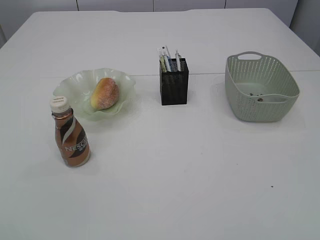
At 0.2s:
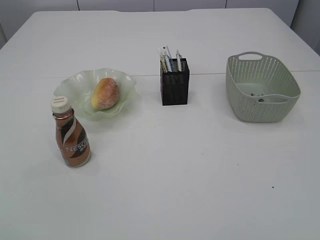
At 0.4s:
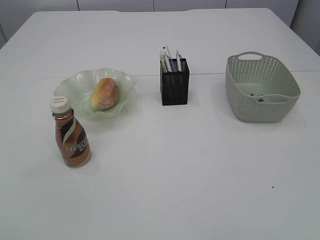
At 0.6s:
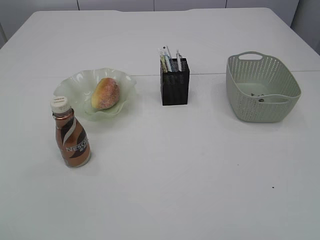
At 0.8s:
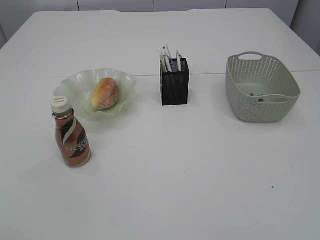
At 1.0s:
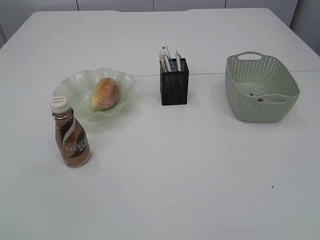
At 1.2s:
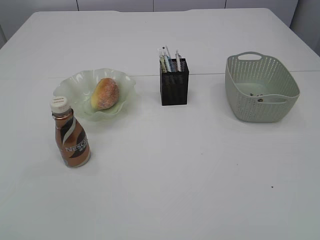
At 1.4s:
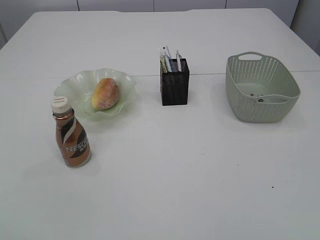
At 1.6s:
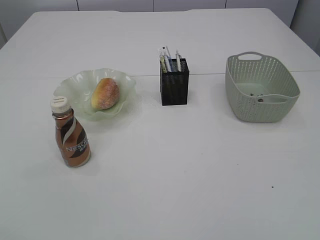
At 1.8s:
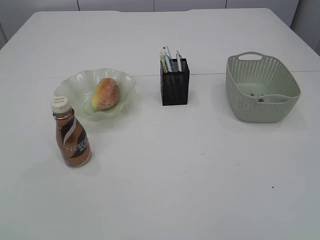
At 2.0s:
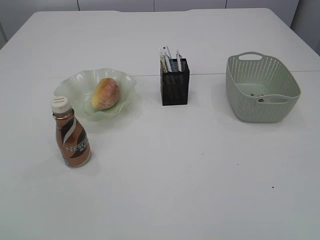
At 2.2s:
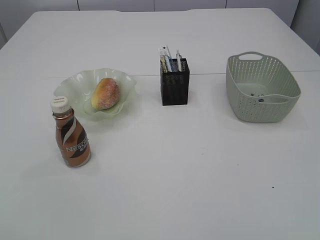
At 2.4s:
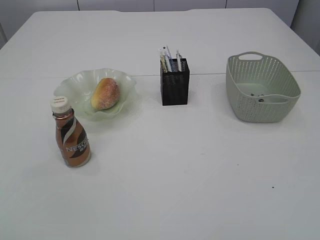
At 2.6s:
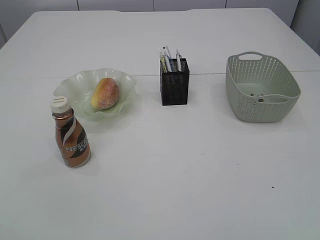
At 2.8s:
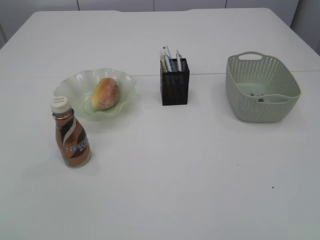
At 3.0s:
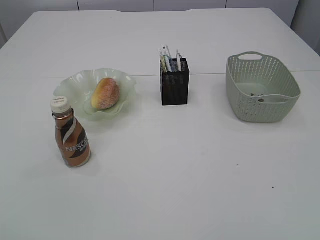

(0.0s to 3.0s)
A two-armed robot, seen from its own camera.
1.6s - 3.0s: Both grippers stay put.

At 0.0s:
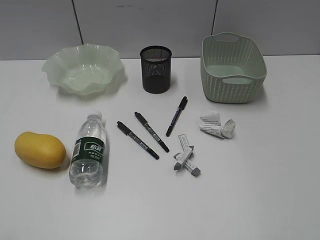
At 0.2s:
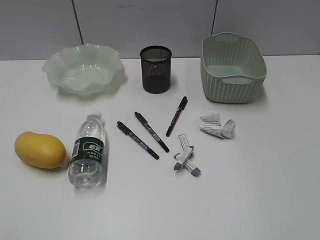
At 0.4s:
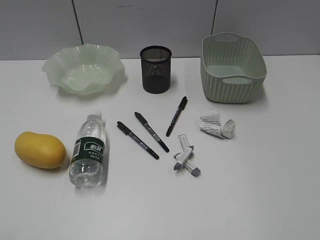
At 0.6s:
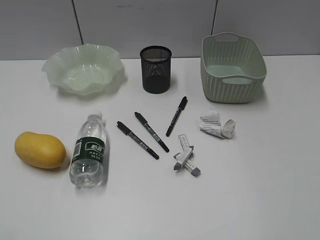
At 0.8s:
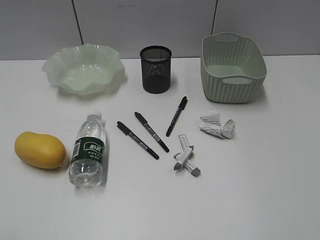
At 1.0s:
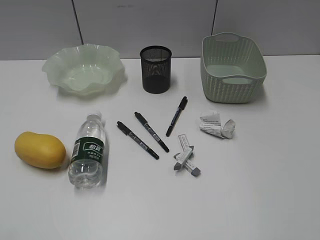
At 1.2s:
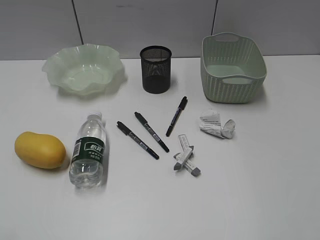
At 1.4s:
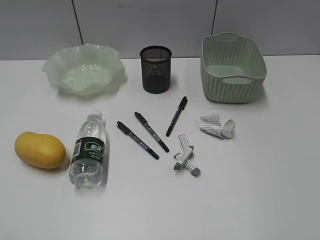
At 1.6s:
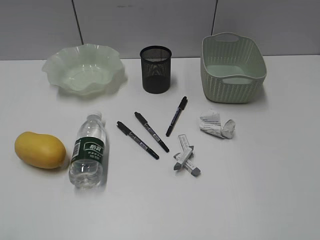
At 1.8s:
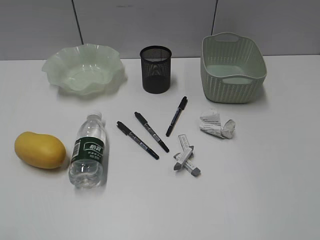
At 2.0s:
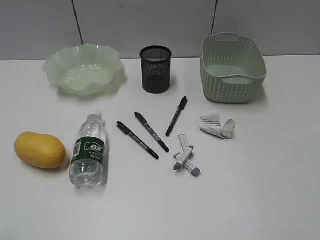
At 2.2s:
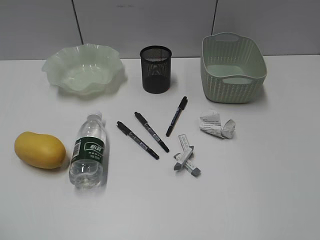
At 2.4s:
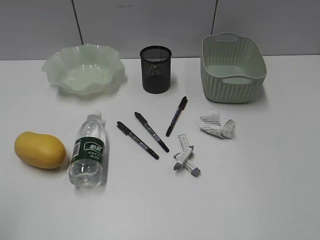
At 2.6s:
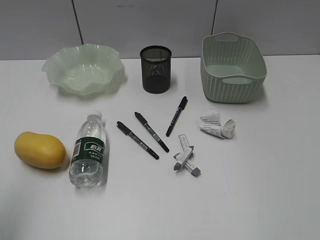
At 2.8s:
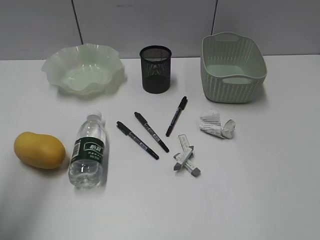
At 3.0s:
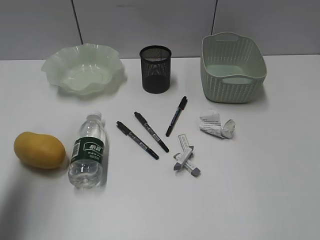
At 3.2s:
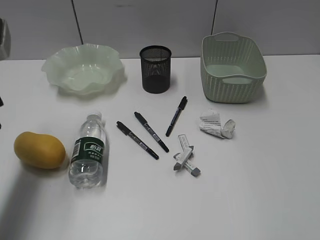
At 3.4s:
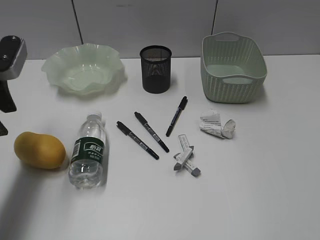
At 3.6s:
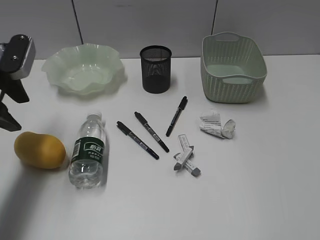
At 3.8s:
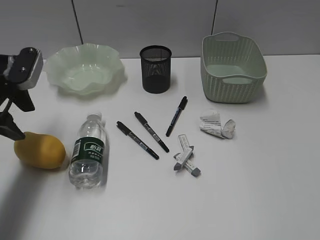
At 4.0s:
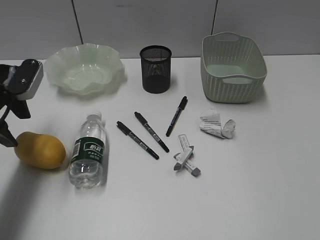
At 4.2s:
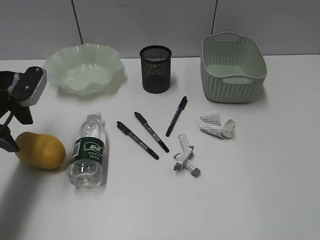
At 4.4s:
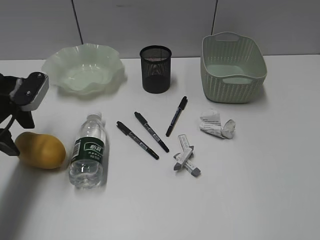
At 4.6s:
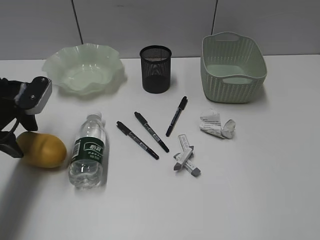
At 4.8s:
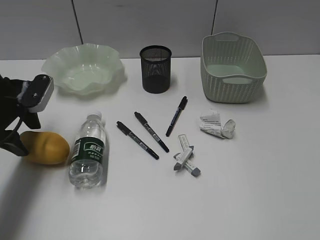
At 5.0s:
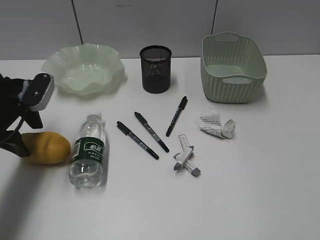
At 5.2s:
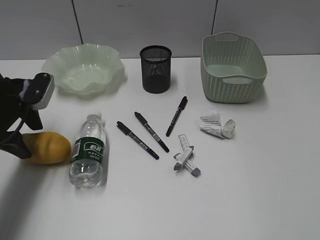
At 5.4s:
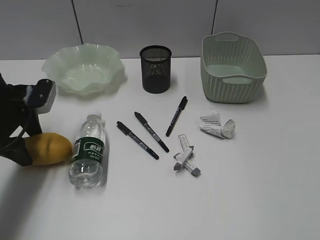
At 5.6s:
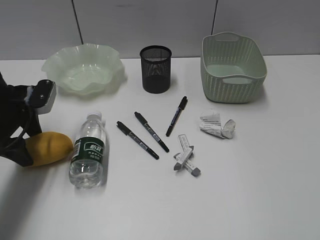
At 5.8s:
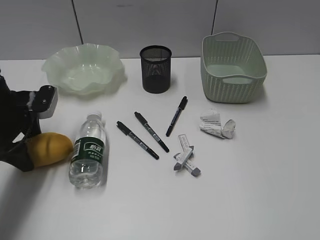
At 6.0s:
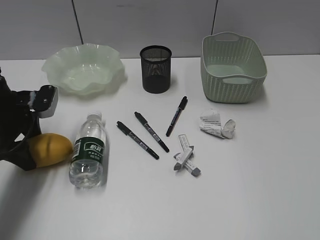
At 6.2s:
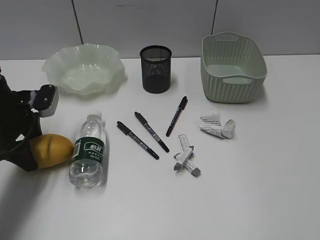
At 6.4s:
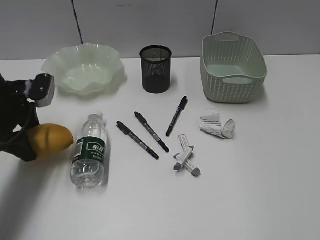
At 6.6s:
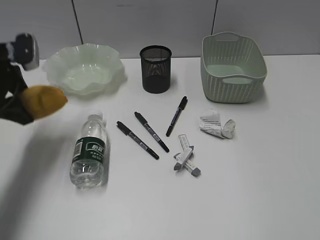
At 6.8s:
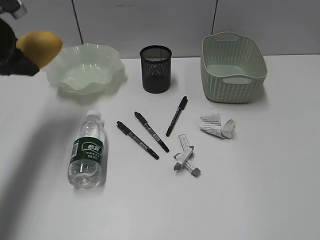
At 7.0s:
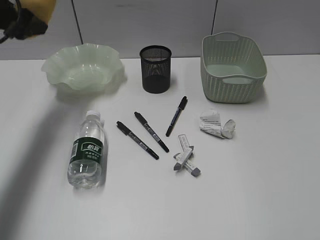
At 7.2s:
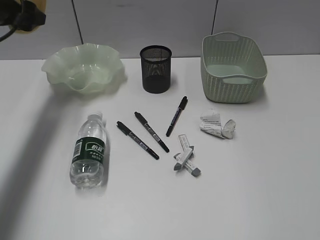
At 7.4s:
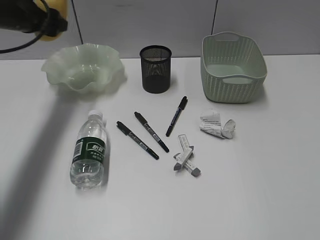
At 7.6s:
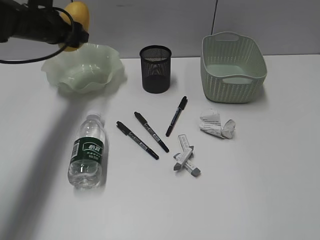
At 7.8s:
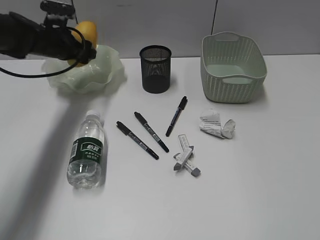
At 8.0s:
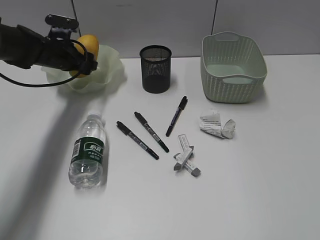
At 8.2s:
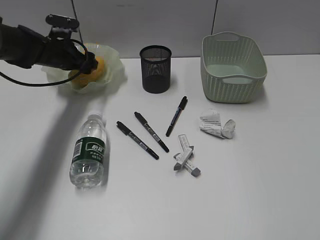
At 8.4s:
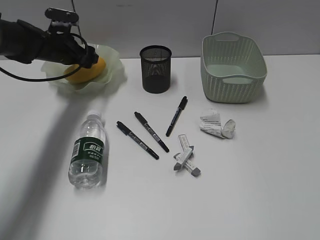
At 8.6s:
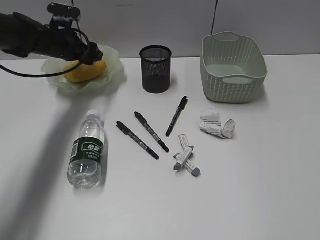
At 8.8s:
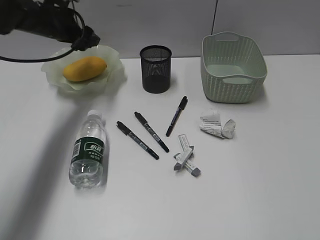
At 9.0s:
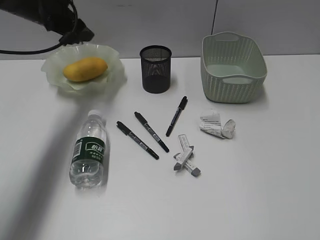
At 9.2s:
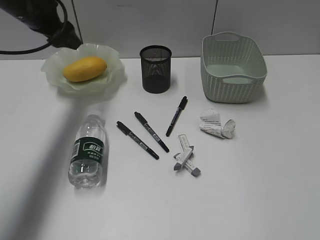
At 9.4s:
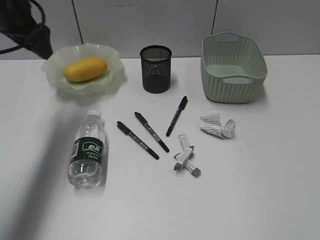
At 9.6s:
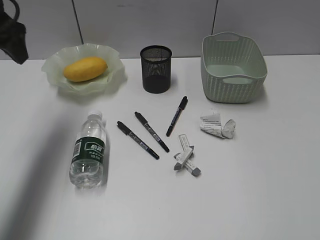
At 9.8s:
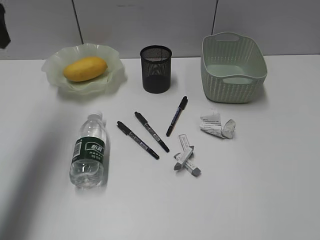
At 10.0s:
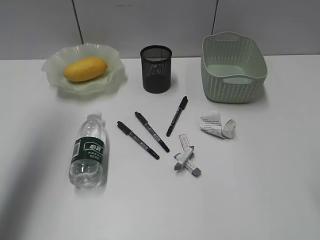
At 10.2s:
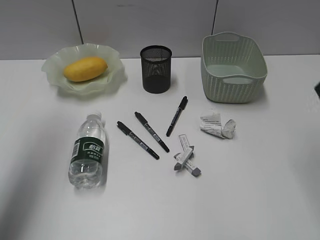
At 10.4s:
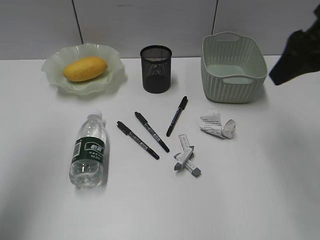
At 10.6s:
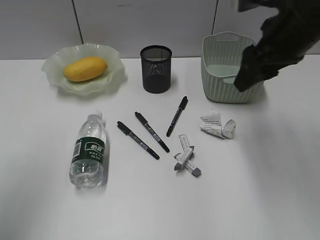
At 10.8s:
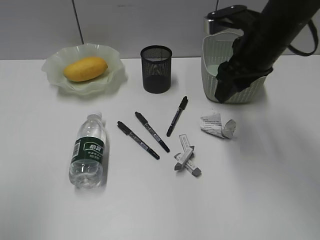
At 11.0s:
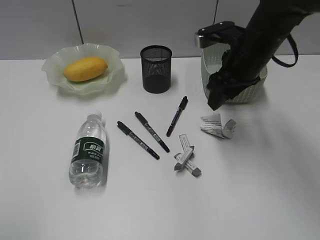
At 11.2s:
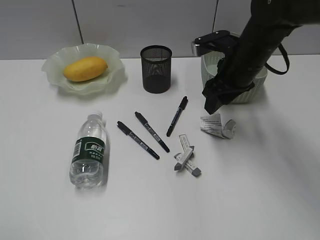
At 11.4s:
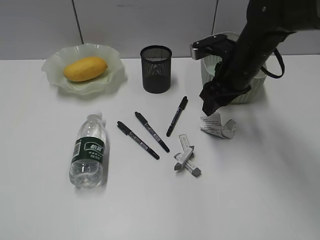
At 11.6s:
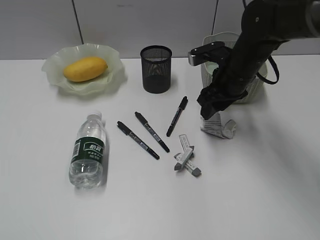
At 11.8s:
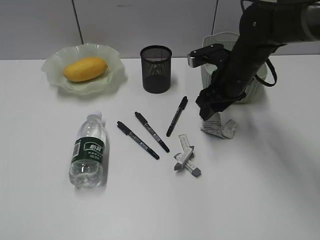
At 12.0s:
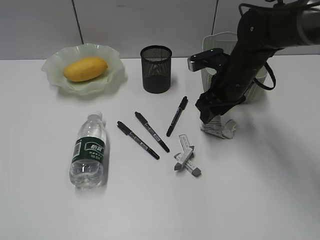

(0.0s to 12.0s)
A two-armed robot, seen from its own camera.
Step, 3.2s - 6.0s: Grasp the mango with left gripper.
Step, 6.2s - 8.8s: Place the mango in the plate with left gripper.
1.6s - 3.0s: The left gripper shifts some 25 cm forward, and opens up.
3.0s - 4.4s: The left gripper is displaced downward and forward by about 15 cm.
4.4s - 6.0s: There are only small adjustments of the grippers.
6.0s - 7.6s: The left gripper shifts roughly 15 cm forward and upward.
7.6s - 9.0s: The left gripper goes downward and returns, about 10 cm each way.
9.0s - 10.4s: The right gripper shifts roughly 30 cm forward. The left gripper goes approximately 30 cm backward and upward.
10.4s - 12.0s: The left gripper is displaced backward and downward by roughly 25 cm; the right gripper moves downward, forward and to the left, approximately 25 cm.

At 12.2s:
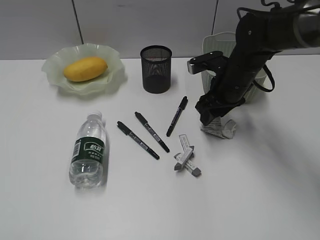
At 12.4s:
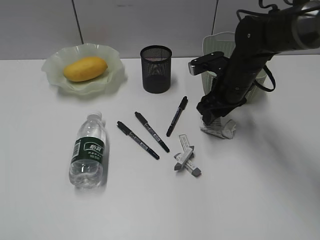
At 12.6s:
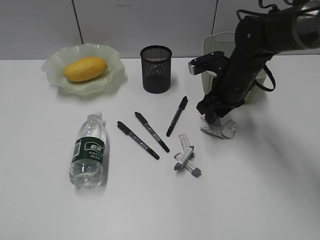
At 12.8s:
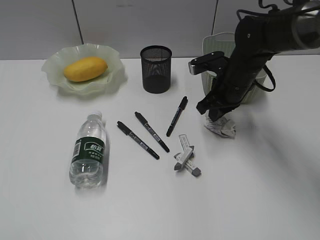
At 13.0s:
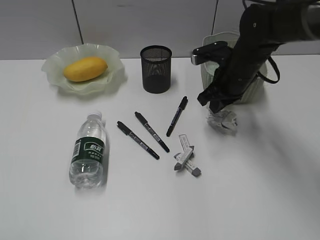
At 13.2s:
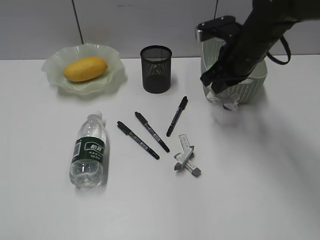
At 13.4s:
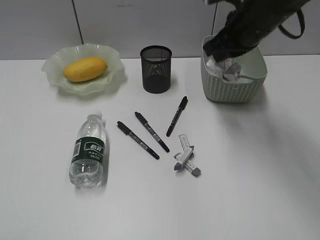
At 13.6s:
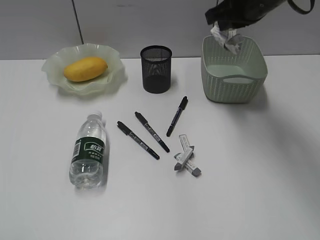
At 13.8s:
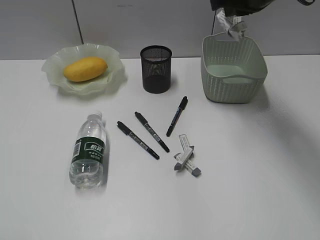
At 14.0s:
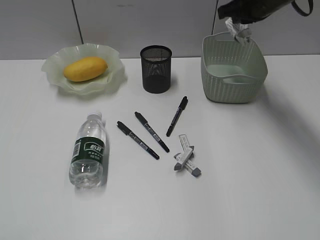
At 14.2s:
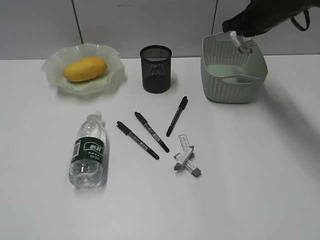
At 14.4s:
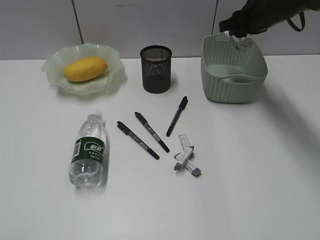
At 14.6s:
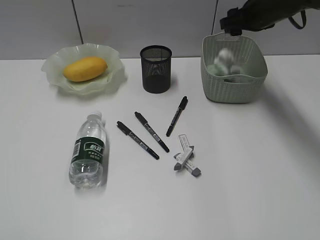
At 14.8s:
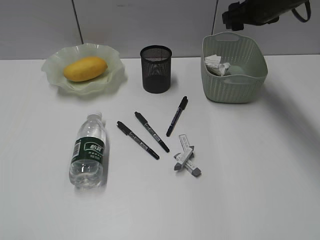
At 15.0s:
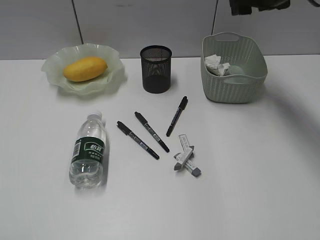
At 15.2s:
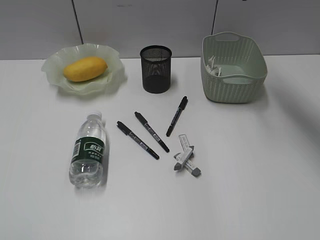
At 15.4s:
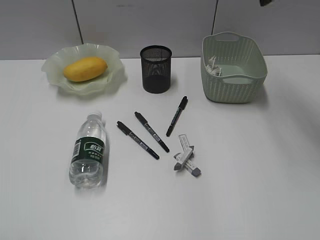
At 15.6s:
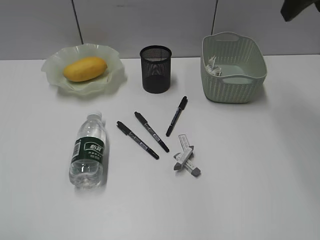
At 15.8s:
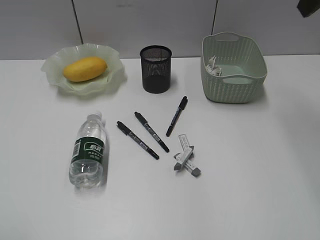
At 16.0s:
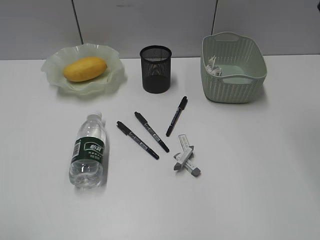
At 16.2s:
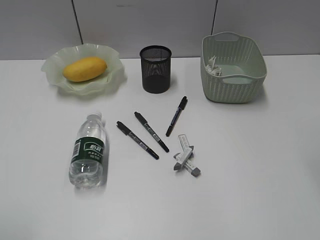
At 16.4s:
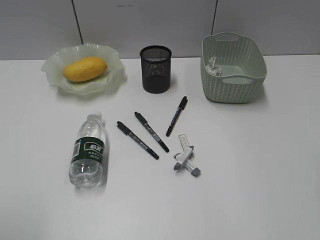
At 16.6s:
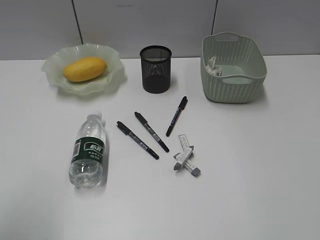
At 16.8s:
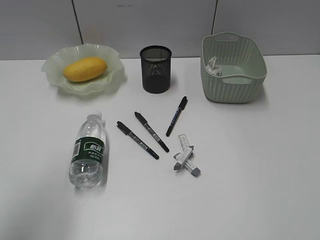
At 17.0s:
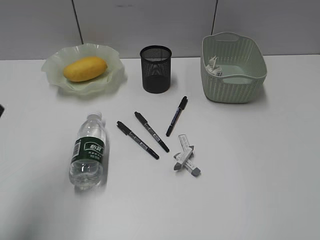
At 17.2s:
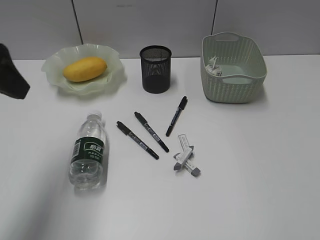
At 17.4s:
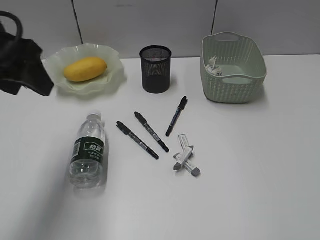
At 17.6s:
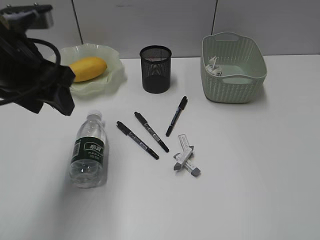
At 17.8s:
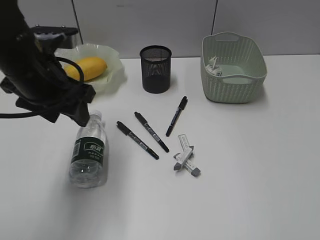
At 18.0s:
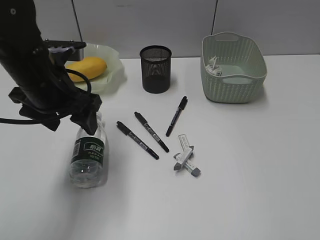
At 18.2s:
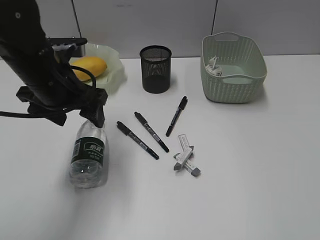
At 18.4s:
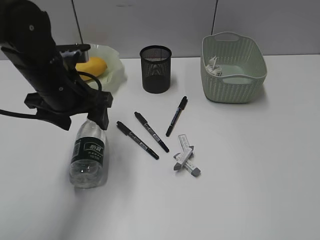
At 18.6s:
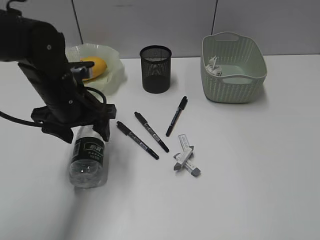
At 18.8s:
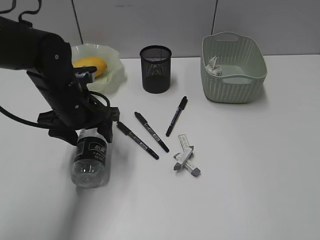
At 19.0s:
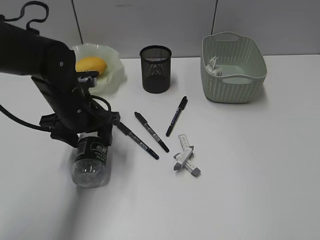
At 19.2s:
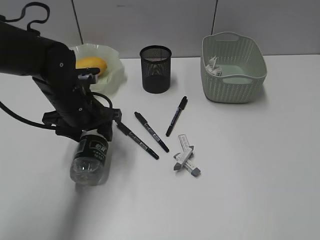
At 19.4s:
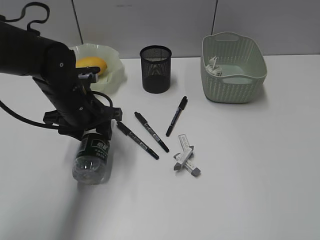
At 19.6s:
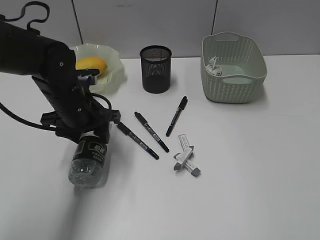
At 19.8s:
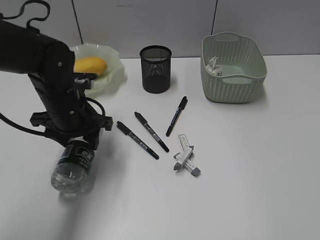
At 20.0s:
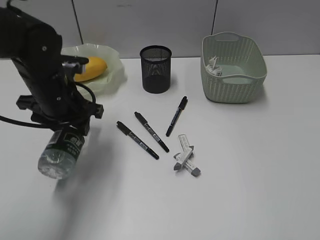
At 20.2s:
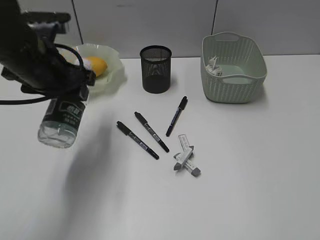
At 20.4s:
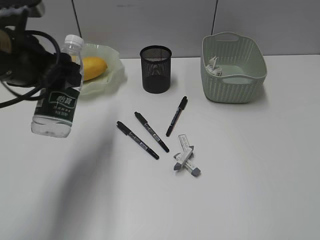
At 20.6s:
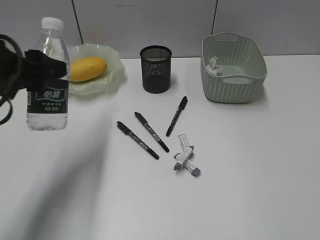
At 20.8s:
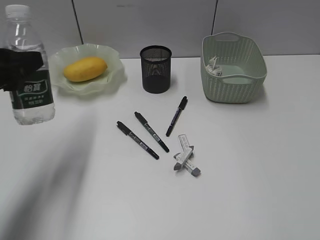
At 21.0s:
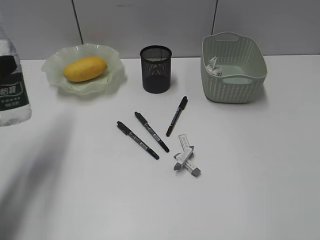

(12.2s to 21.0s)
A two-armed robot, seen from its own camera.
Step, 13.0s - 14.6s: Place the waste paper in the basket with right gripper.
Step, 14.8s - 19.4s: Grasp the bottle with left gripper.
12.2s - 13.6s: The right gripper goes some 15 cm upward, and closes.
13.6s - 15.2s: The right gripper moves to the right, about 5 cm, and opens up.
15.2s - 16.6s: The left gripper is displaced forward and upward by roughly 10 cm. Meanwhile the right gripper travels backward by approximately 35 cm.
16.6s - 18.0s: The left gripper travels forward, to the right and downward by about 30 cm. Meanwhile the right gripper goes about 10 cm backward.
18.0s - 19.6s: The left gripper moves downward, approximately 10 cm.
19.6s - 21.0s: The left gripper goes about 20 cm to the left, backward and upward.
